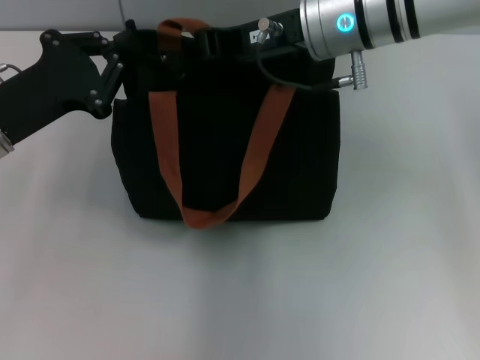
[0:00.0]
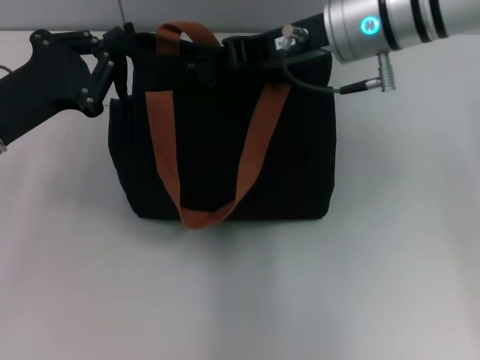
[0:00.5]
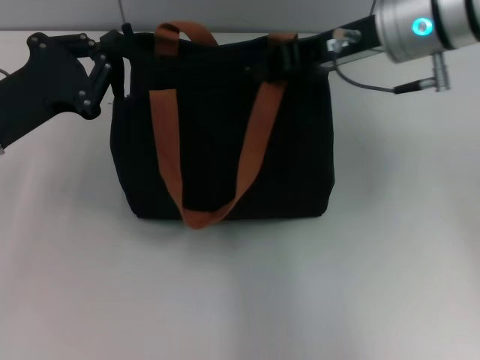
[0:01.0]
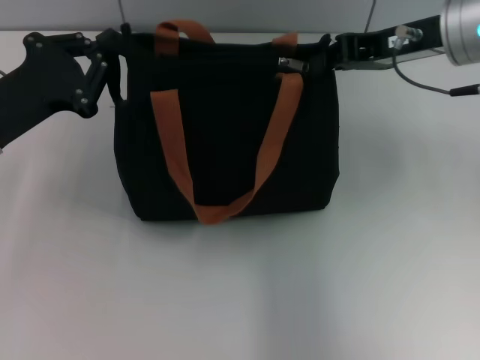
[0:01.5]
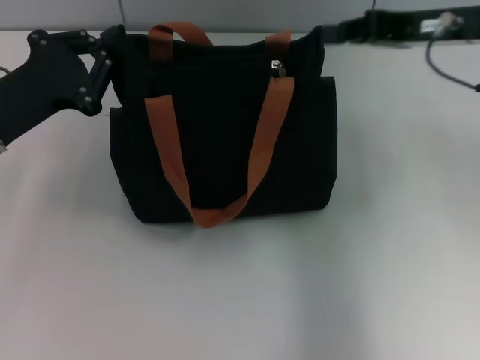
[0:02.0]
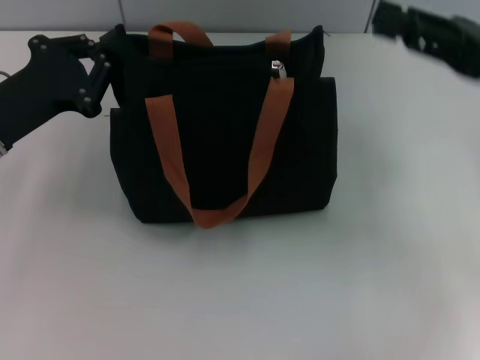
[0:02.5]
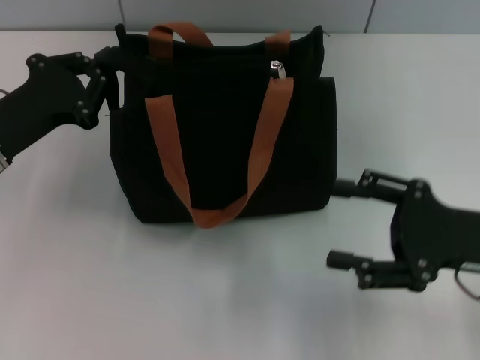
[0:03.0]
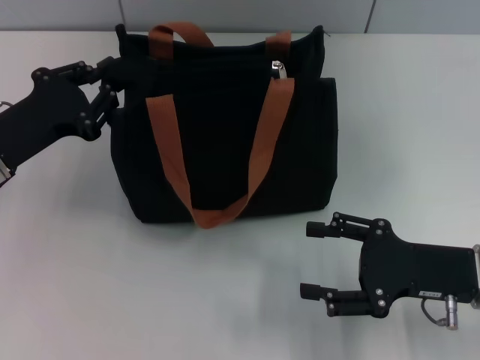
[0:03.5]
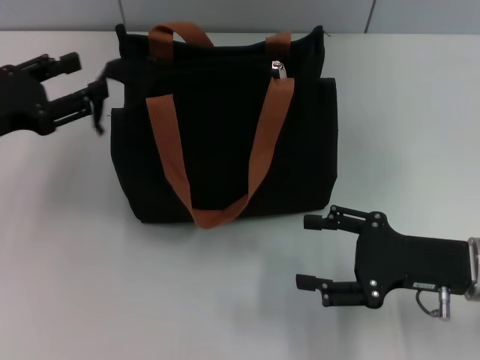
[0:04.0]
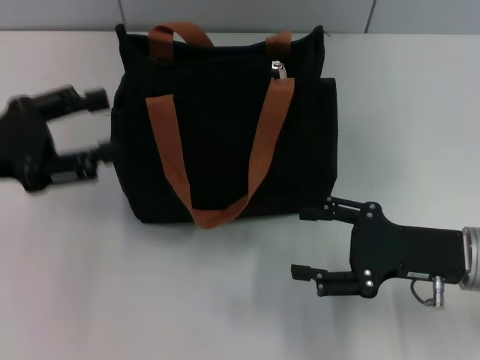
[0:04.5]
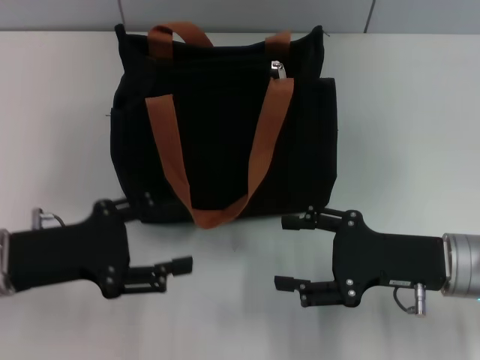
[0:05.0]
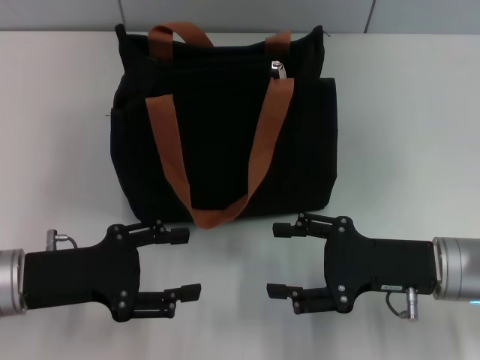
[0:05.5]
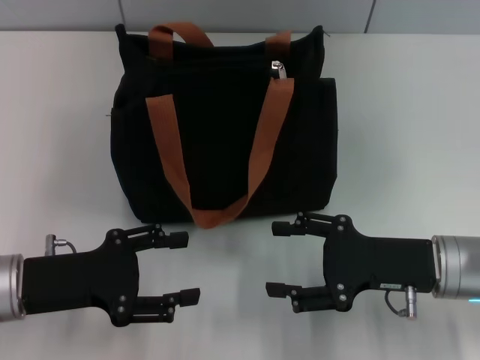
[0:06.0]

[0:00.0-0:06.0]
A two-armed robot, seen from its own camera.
0:00.0 to 0:02.0: The right gripper moves to the right, approximately 15 cm.
0:02.0 to 0:04.0: The right gripper is displaced downward and backward by roughly 20 cm, and opens its fingers. Meanwhile the left gripper opens.
0:04.0 to 0:06.0: The left gripper heads backward, downward and to the right, covering roughly 10 cm.

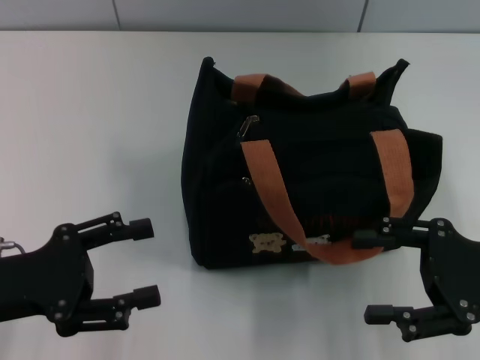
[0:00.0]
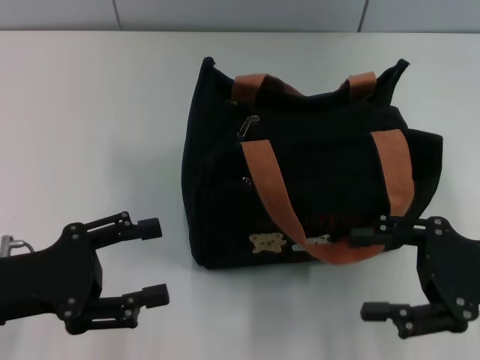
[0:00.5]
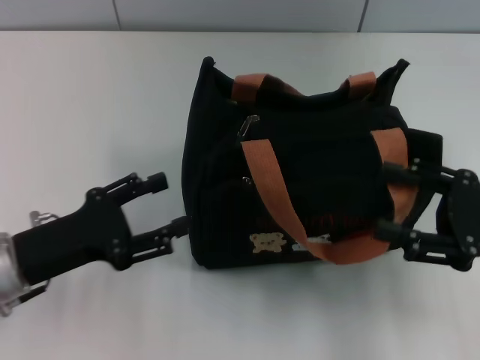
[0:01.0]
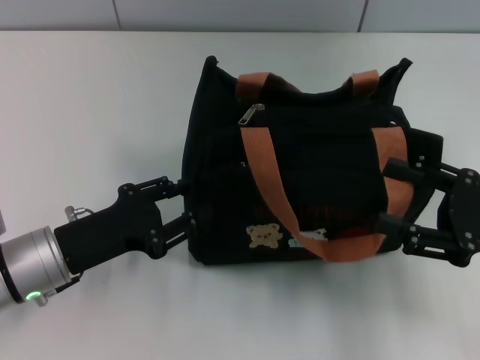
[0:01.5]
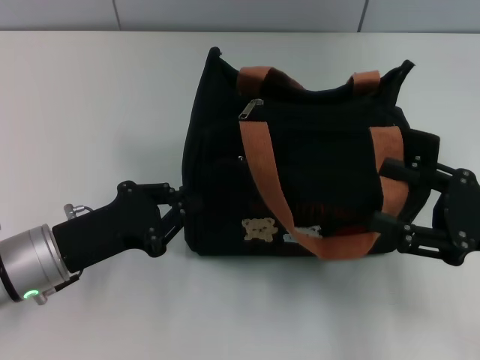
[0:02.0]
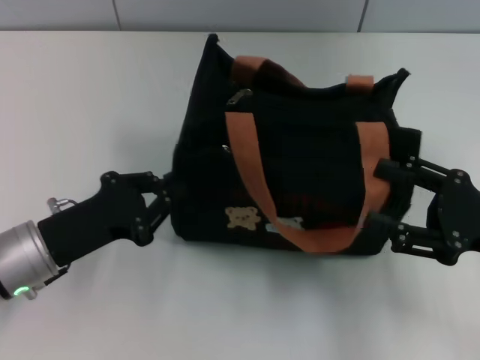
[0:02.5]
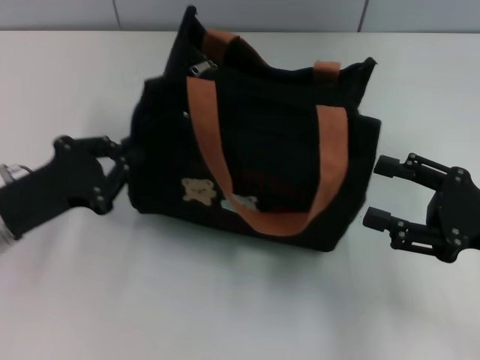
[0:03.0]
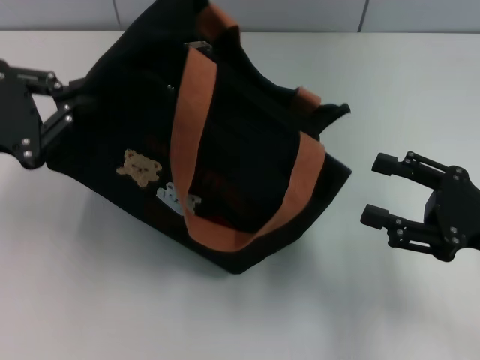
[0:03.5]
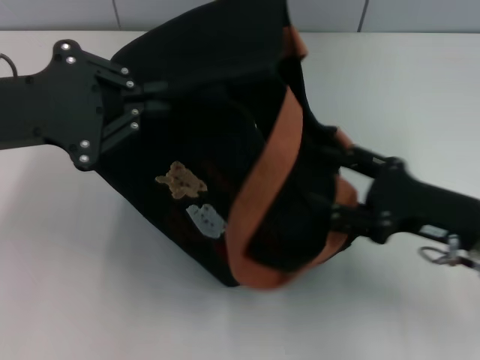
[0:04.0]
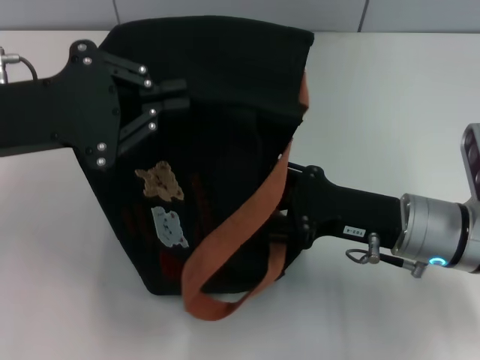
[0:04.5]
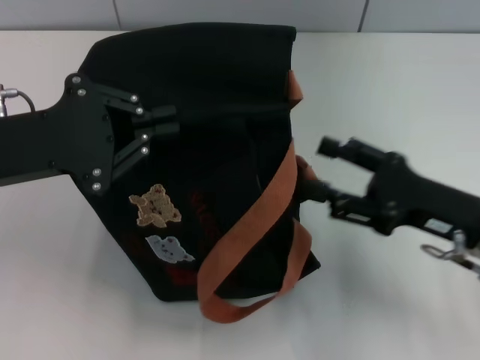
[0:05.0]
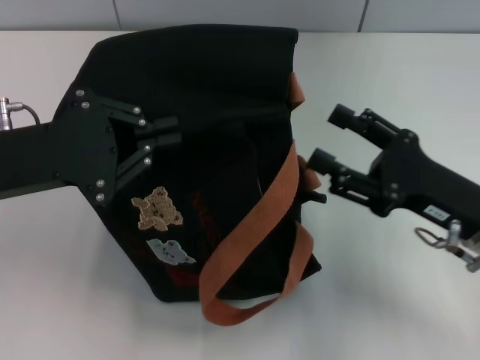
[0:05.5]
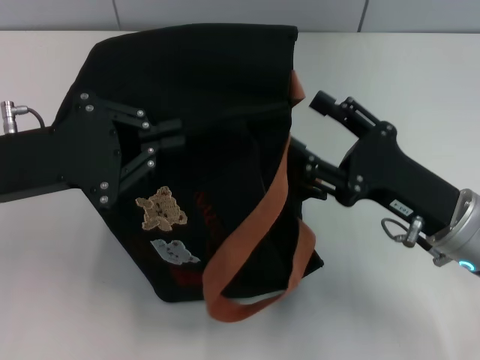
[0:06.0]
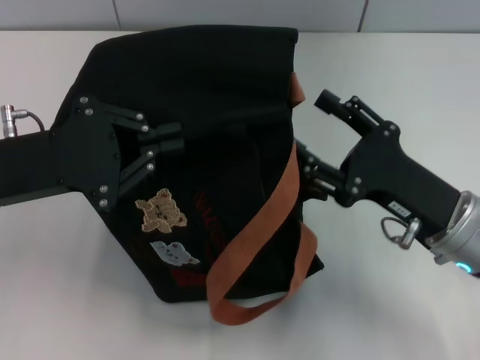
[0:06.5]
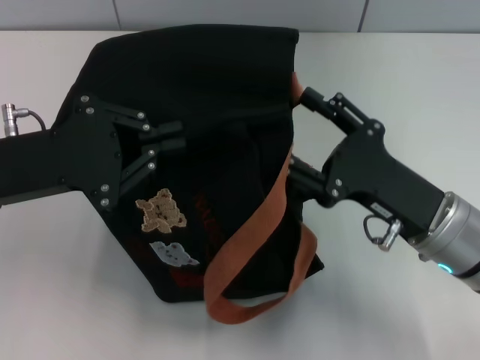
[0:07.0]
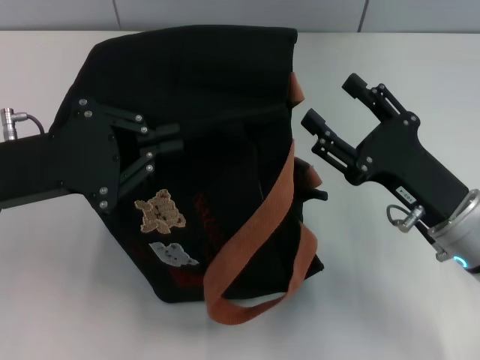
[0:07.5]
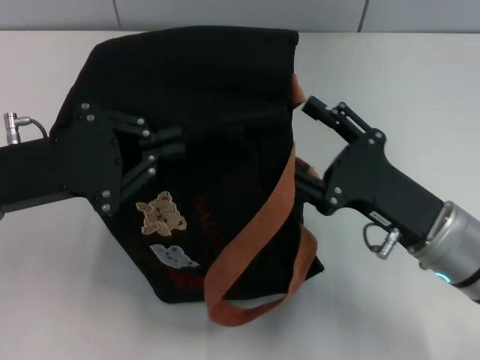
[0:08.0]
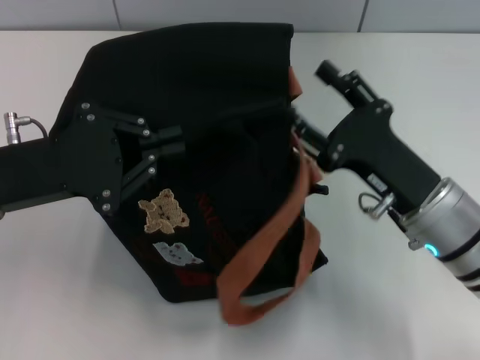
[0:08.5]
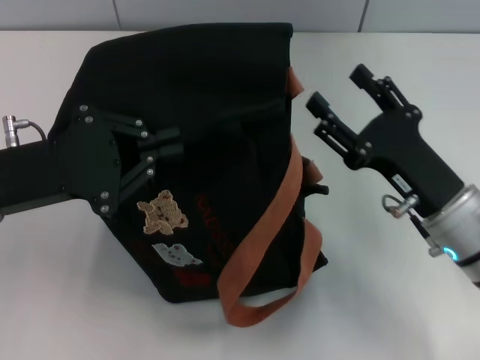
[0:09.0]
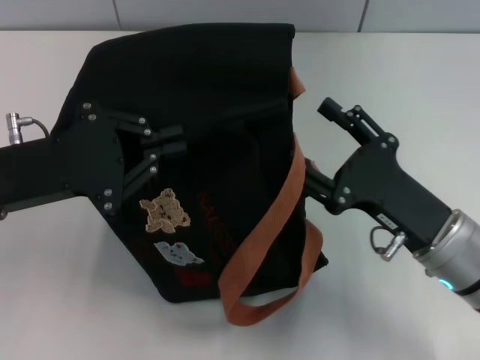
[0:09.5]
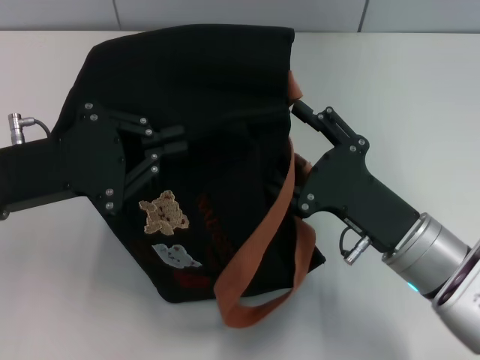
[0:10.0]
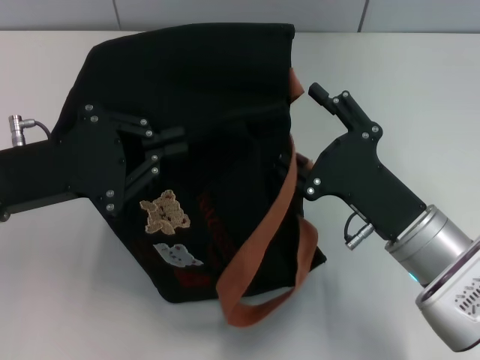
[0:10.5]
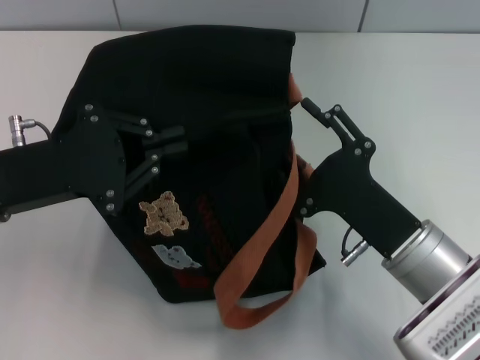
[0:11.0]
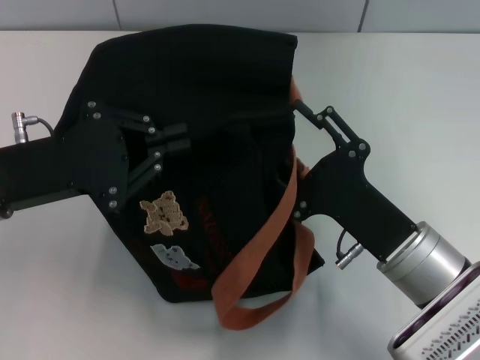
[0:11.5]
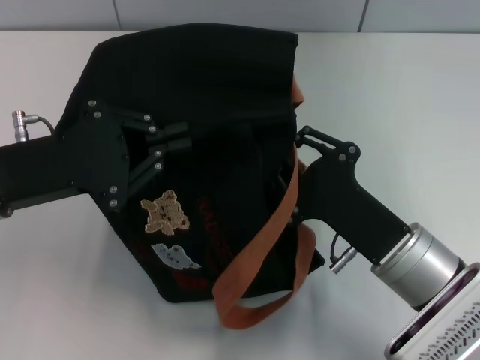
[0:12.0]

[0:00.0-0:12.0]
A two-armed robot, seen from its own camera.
0:00.0 to 0:02.0: The left gripper shifts roughly 5 cm to the right, and closes its fingers.
0:02.0 to 0:04.0: The right gripper travels to the left by approximately 5 cm; the left gripper travels upward by approximately 15 cm.
0:04.0 to 0:06.0: The left gripper heads downward, covering some 5 cm. The right gripper goes left and right, roughly 5 cm each way, reversing 2 times.
0:06.0 to 0:08.0: The grippers move only a little.
0:08.0 to 0:10.0: The grippers move only a little.

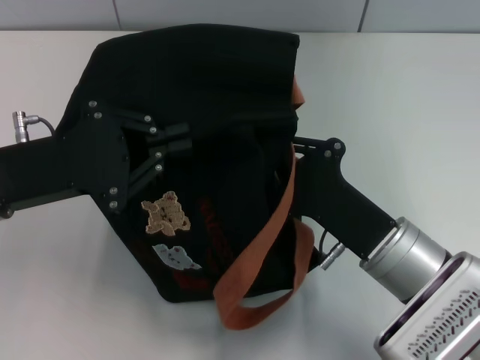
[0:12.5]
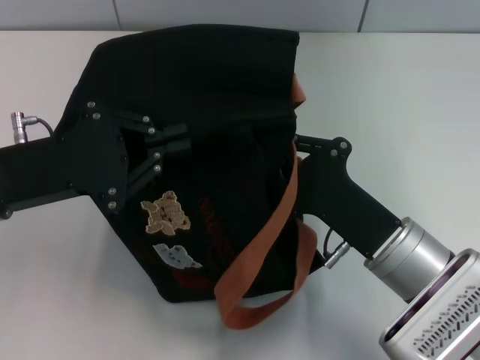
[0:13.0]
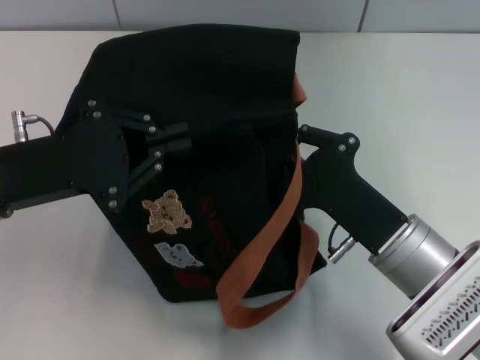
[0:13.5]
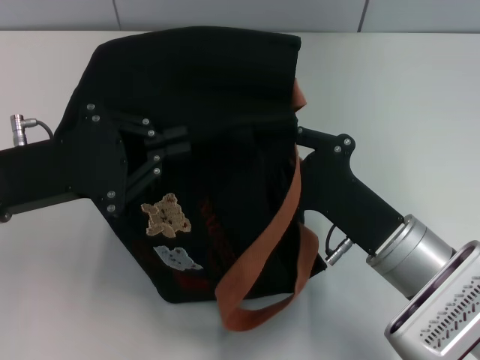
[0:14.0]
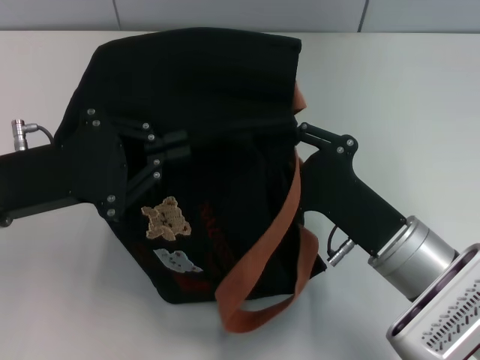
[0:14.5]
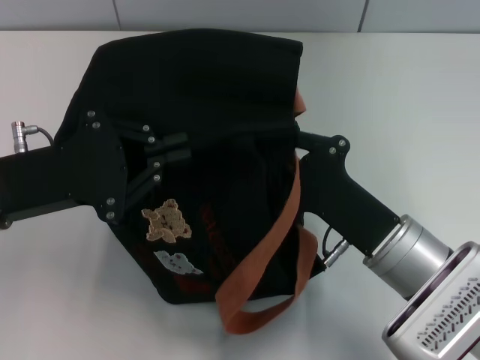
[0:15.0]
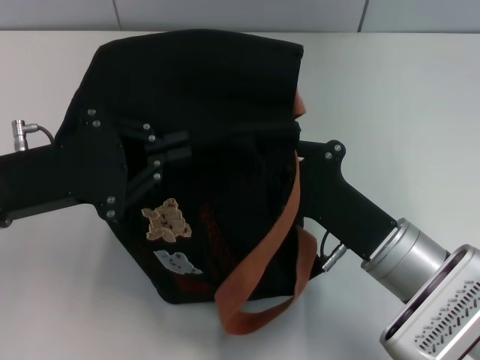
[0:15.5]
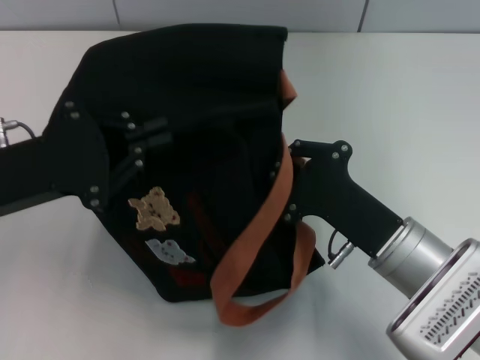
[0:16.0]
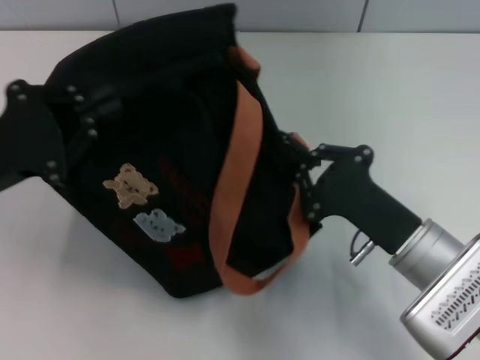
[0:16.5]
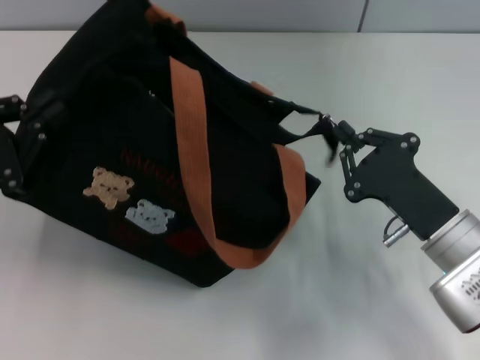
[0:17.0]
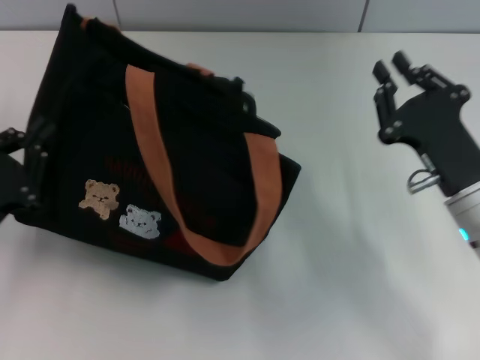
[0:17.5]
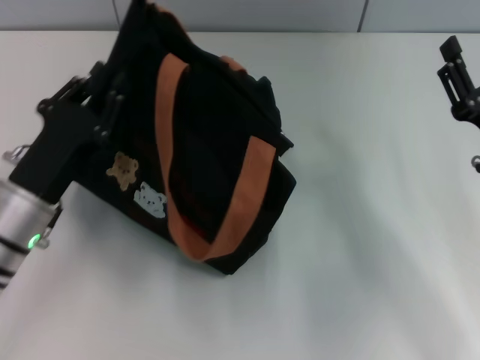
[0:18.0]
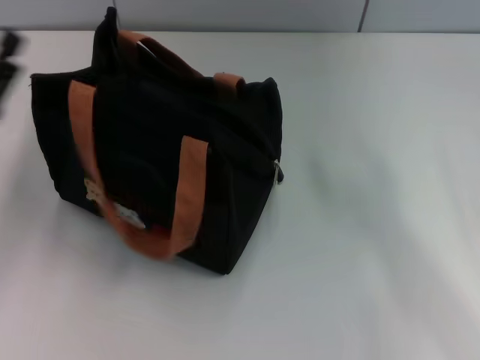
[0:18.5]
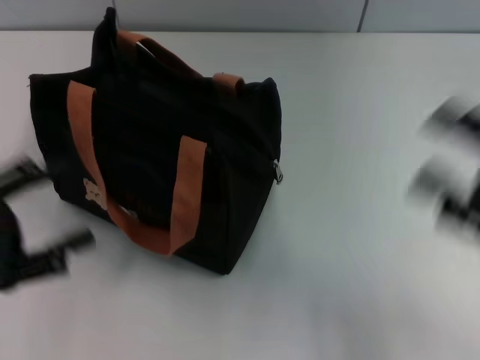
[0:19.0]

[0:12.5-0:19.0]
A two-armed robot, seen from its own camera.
Step, 0:12.5 to 0:17.0: Pull open the zipper with your right hand.
Step, 0:17.5 to 0:18.0: Grab the bag with your left hand.
0:12.5 to 0:14.5: Neither gripper changes place.
0:14.5 to 0:17.0: The right gripper is displaced to the right by roughly 5 cm. Meanwhile the left gripper is displaced to the left by approximately 5 cm.
0:17.0 to 0:19.0: The right gripper heads to the right and upward, covering approximately 10 cm, and opens. Meanwhile the left gripper moves approximately 10 cm to the right and comes back, and opens.
